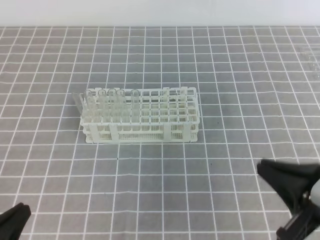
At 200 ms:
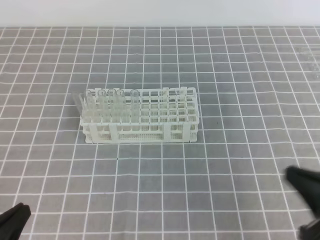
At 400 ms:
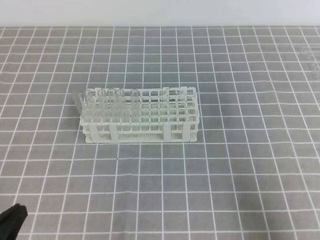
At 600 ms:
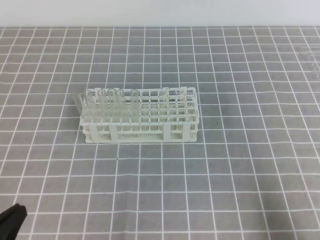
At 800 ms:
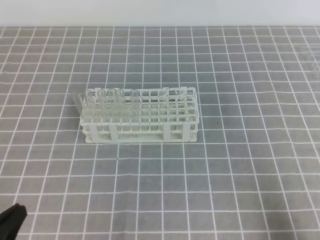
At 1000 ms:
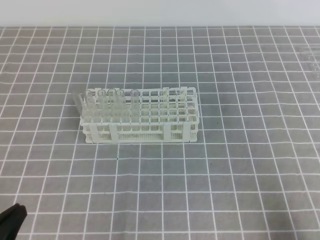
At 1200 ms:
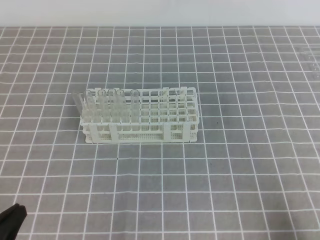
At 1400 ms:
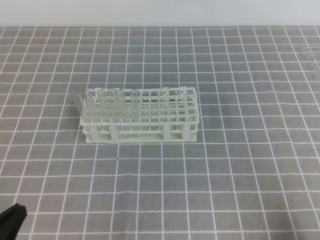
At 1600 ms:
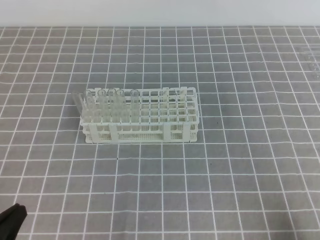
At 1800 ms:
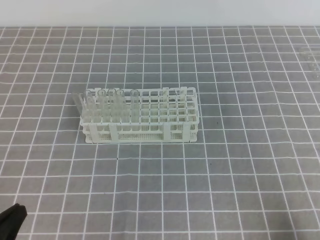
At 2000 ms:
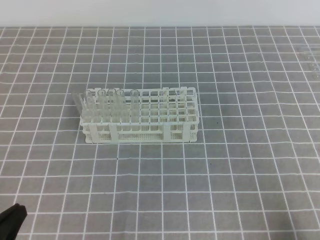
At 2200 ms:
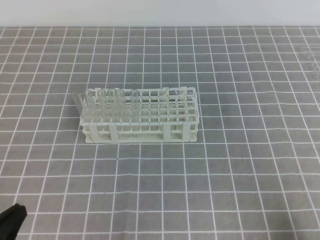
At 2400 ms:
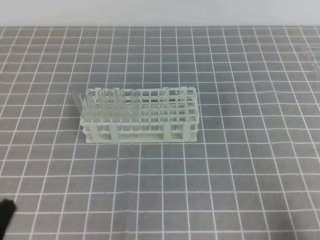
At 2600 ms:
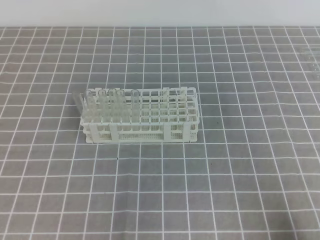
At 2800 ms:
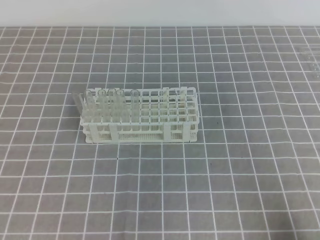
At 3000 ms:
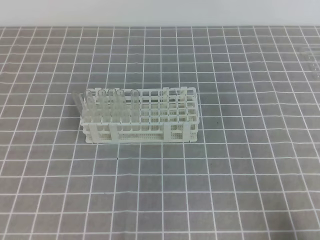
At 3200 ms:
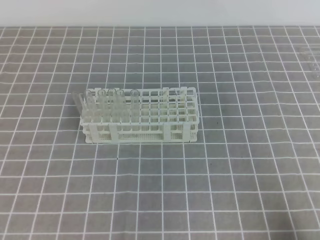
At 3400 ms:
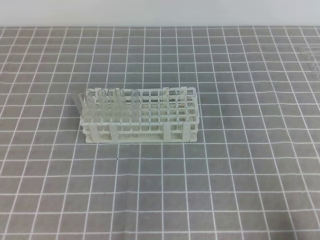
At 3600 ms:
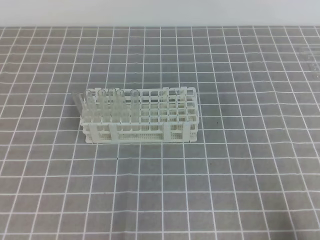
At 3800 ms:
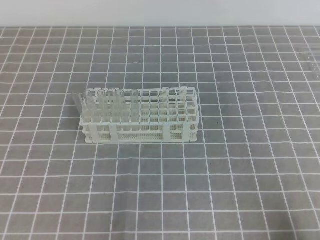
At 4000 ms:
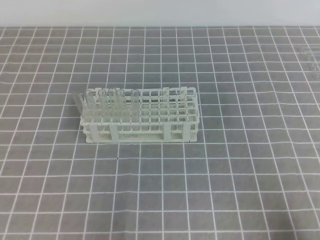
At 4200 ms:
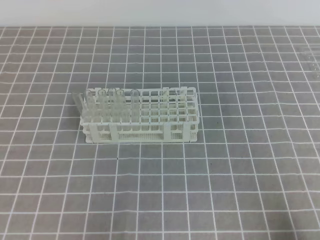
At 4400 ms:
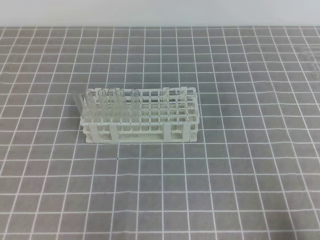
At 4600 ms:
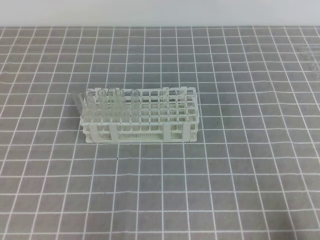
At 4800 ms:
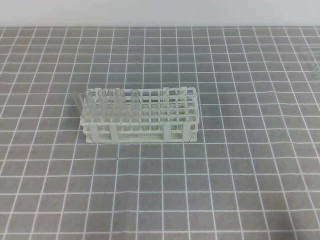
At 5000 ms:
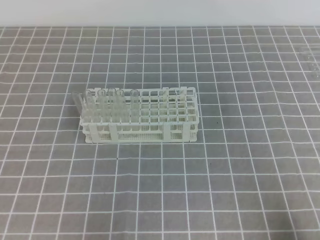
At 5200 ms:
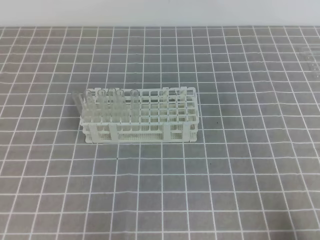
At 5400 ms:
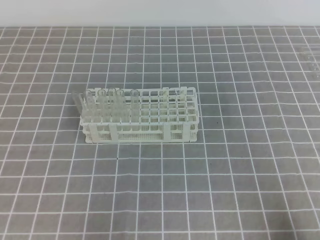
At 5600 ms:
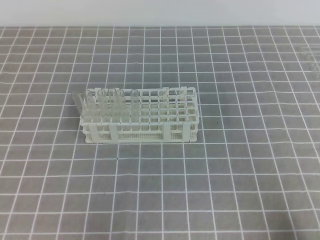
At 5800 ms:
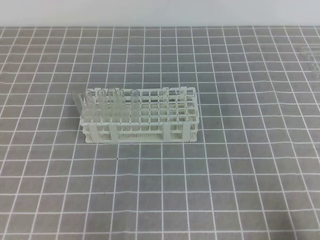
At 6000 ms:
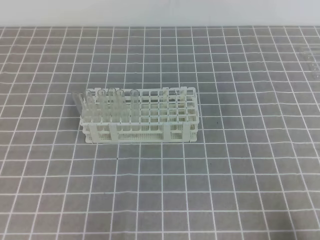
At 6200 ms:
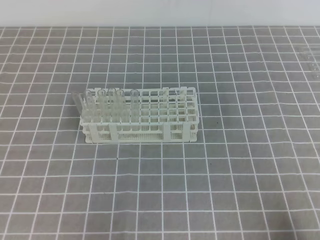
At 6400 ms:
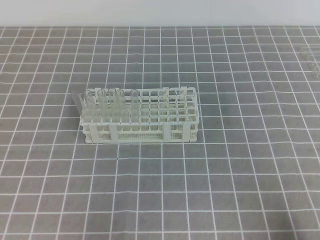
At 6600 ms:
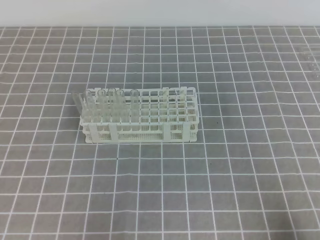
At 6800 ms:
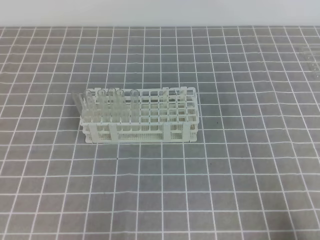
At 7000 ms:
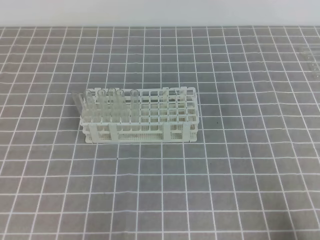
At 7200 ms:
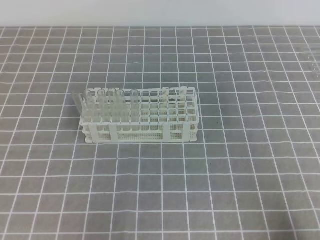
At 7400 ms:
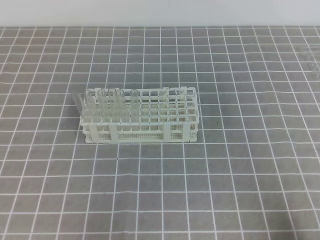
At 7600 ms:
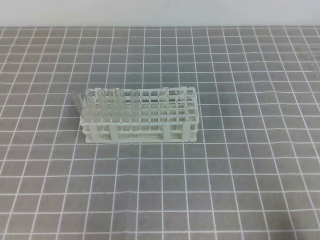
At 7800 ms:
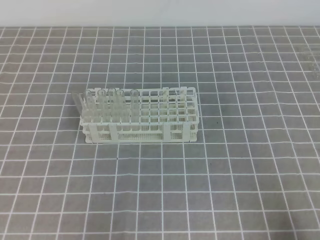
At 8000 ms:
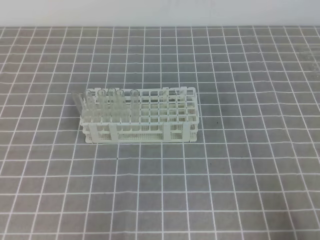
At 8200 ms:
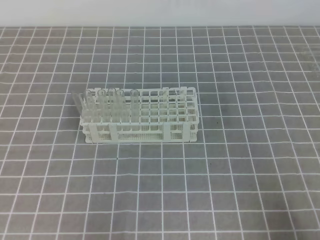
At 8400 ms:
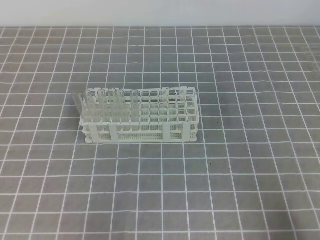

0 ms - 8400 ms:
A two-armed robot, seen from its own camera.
0 ms - 1400 ms: The right gripper moves to the right, downward and backward, some 15 cm.
4200 ms - 8400 ms: Both grippers stay put.
